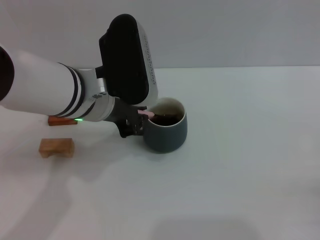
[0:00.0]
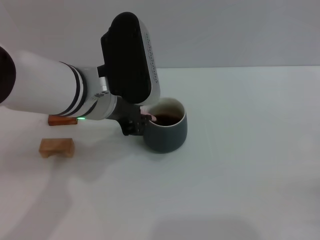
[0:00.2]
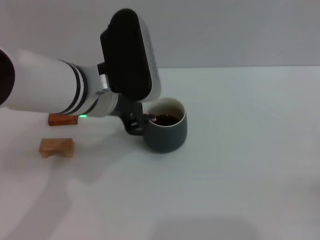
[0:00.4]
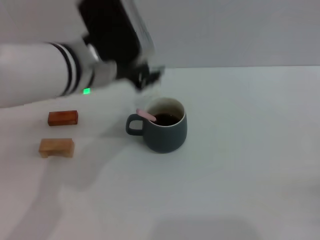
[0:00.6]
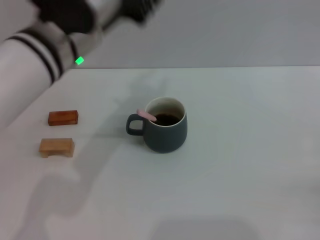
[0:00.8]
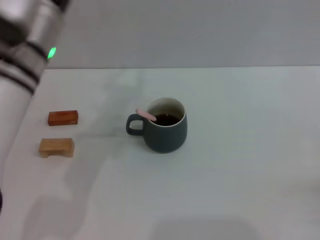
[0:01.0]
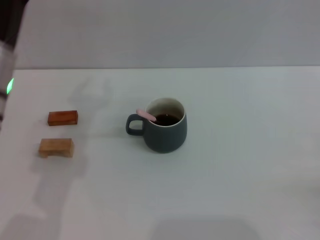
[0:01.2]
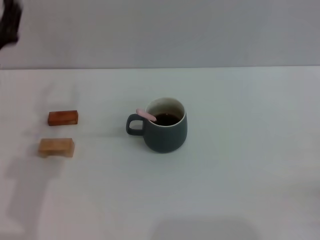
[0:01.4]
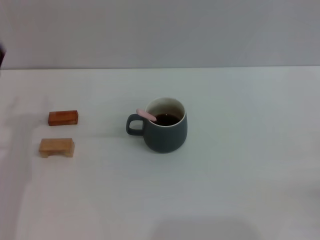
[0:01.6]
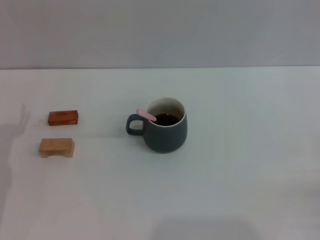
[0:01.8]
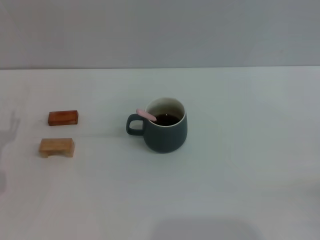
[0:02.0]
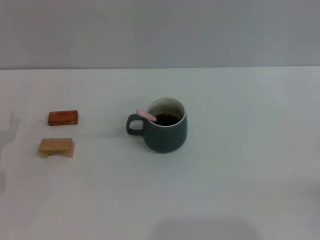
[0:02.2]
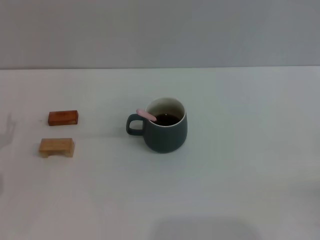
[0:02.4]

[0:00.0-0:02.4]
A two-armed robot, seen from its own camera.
Task of the whole recording: Move the grey cup to the center, lift the pink spoon, stir it three times in the cup, and put the spoon into the cup.
0:00.0 to 0:01.2: The left gripper heads to the left, covering about 10 cm, and opens.
0:01.2 to 0:02.4: The left gripper heads downward and to the left, covering roughly 20 cm, and opens up.

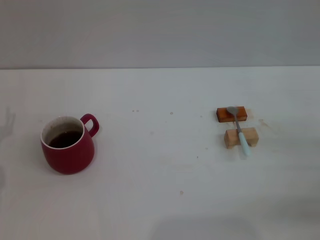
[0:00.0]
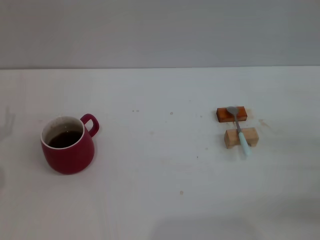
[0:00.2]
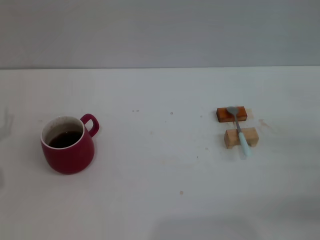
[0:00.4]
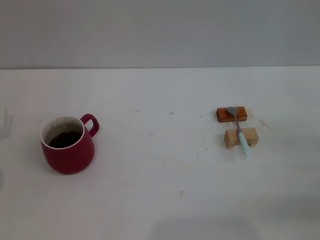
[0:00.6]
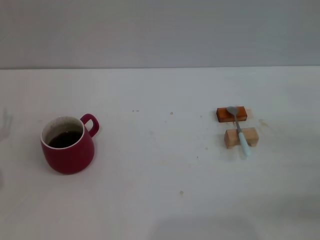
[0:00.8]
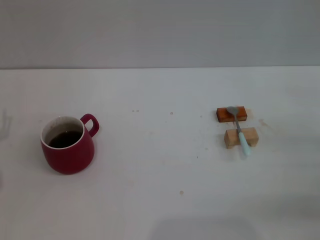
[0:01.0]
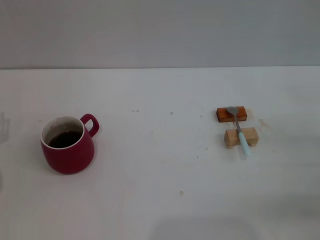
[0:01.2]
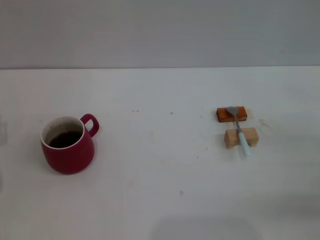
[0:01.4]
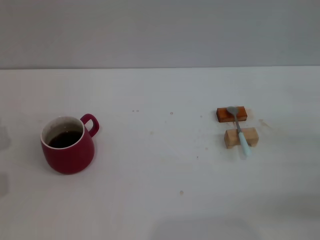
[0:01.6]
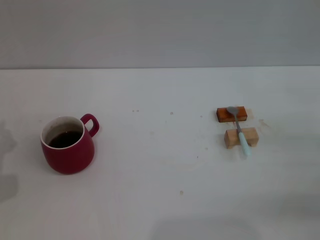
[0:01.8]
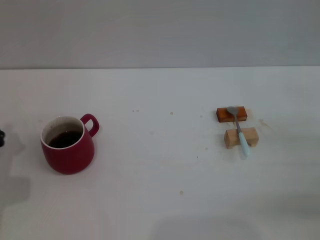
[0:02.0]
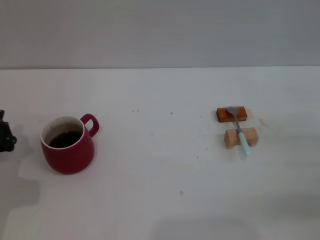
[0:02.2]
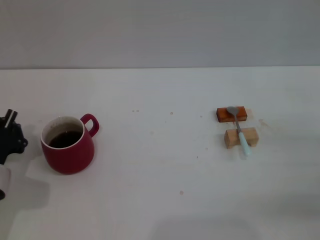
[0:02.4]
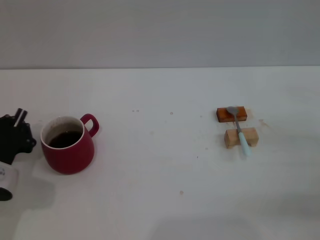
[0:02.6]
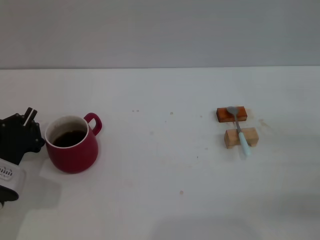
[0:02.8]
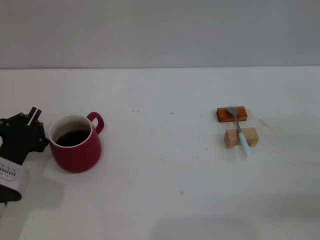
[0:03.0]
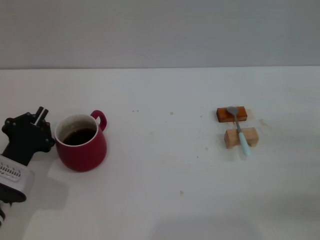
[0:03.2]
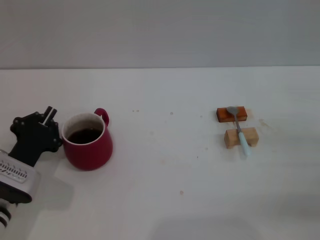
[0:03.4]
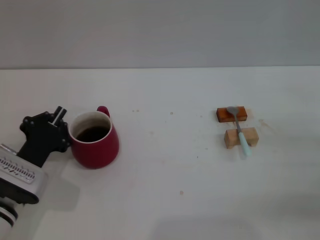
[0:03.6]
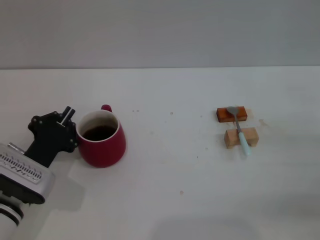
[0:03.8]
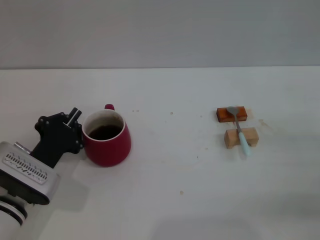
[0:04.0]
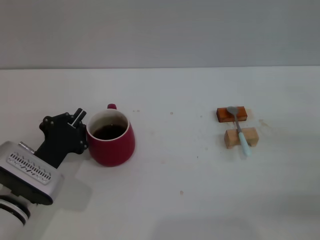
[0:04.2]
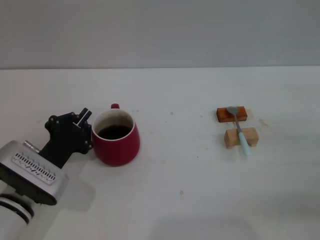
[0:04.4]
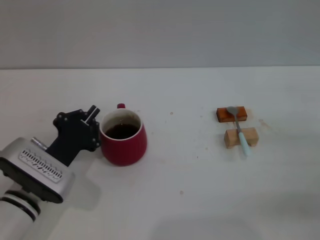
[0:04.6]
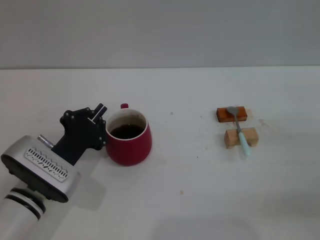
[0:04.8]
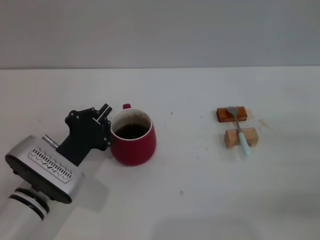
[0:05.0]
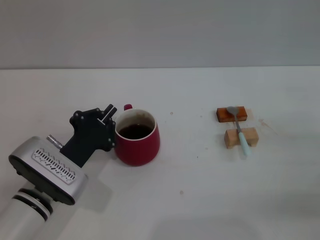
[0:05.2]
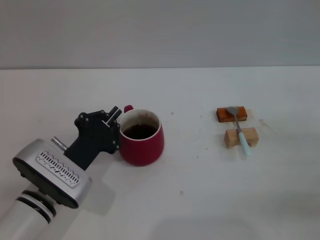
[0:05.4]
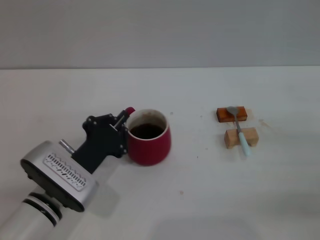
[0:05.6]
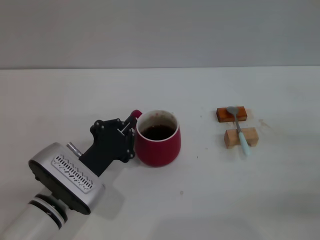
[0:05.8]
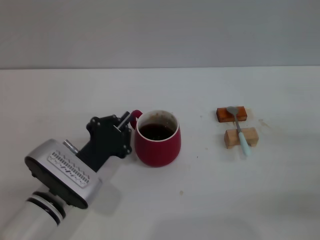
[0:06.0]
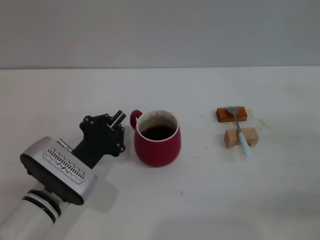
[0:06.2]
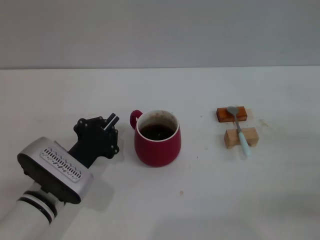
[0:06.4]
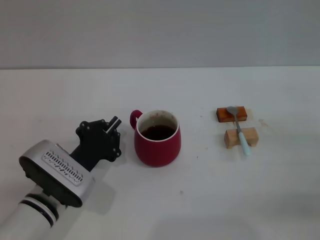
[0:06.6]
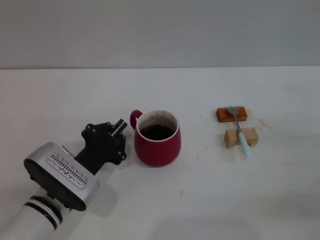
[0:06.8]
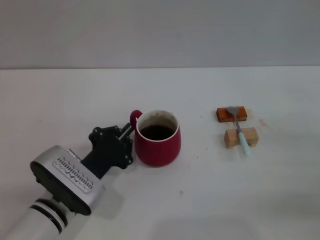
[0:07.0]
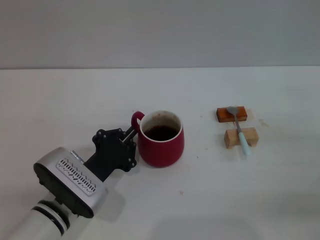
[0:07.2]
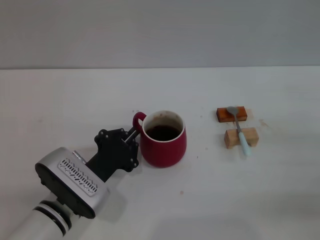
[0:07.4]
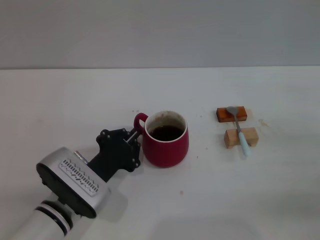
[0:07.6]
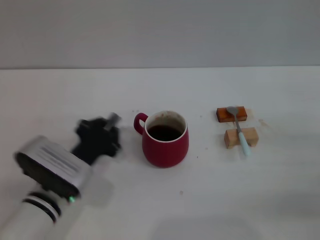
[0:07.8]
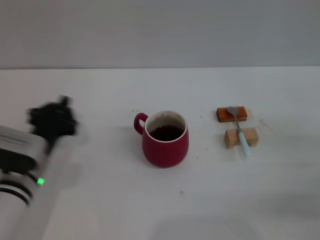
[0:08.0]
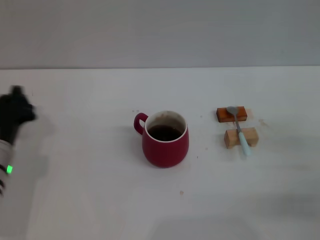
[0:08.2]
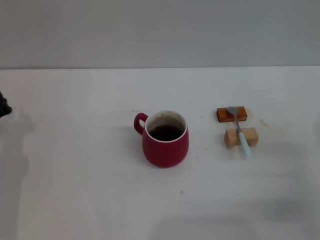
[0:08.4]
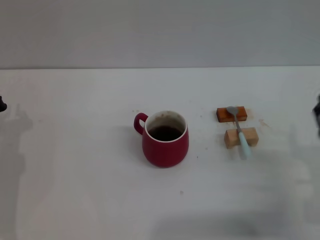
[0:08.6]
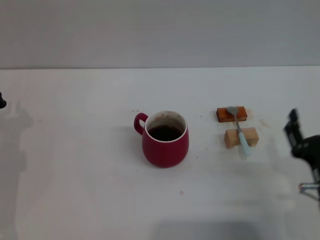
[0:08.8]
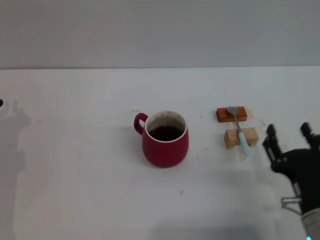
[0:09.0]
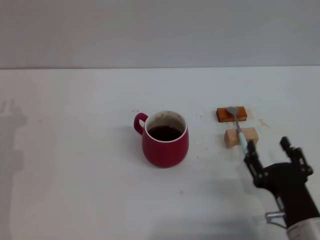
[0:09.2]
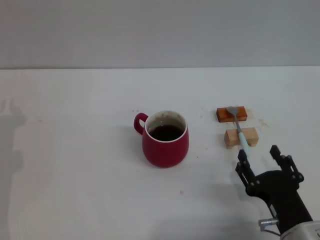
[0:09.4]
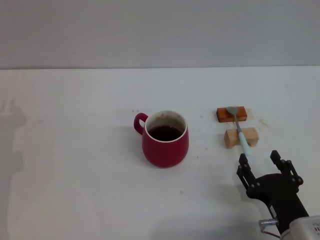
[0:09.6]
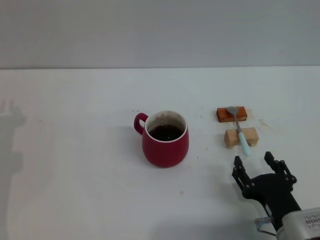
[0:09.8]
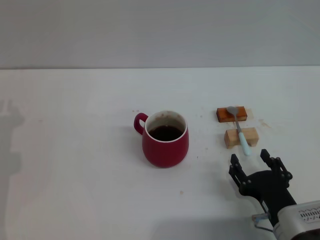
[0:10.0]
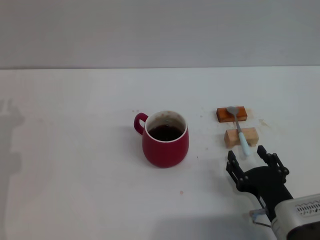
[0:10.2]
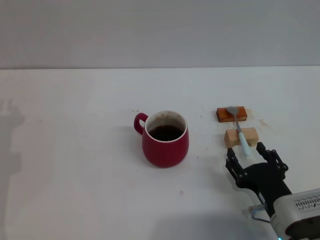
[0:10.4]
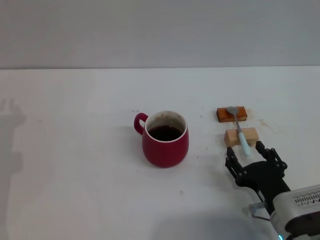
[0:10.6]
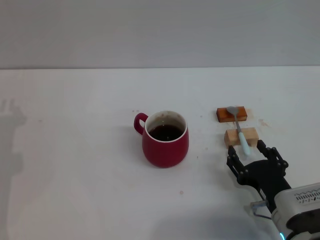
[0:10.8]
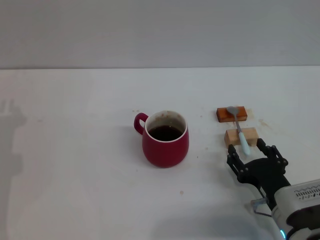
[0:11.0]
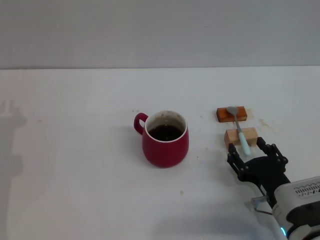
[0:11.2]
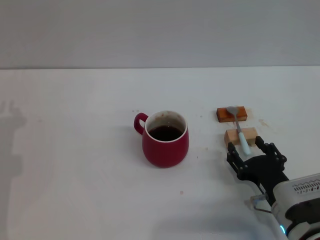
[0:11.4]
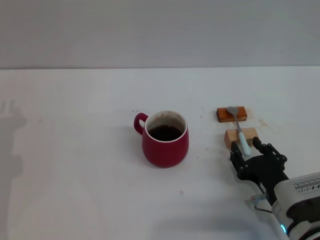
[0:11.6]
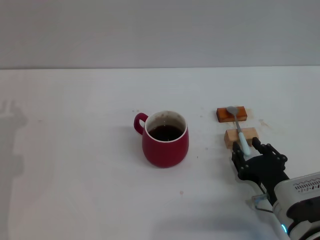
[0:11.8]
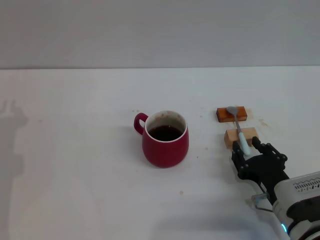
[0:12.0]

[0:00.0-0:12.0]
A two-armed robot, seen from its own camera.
Task of the whole recording: Move the red cup to the center, lift the blue spoon, stir it three times in the cup, and put the spoon into the cup.
Step, 0:01.2 to 0:07.6: Move the cup in the center of the table with left gripper.
0:01.6 to 0:03.0: The left gripper is displaced to the right by roughly 5 cm, and closes up.
0:03.0 to 0:04.4: The left gripper travels to the right by about 5 cm.
0:04.4 to 0:06.0: The left gripper moves to the right, approximately 5 cm.
0:06.0 to 0:07.6: The grippers make only small movements.
0:07.6 to 0:09.0: The left gripper shifts about 15 cm to the left. Meanwhile the right gripper shifts about 15 cm to the left and backward.
0:09.0 to 0:12.0: There are only small adjustments of the grippers.

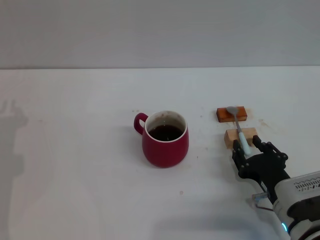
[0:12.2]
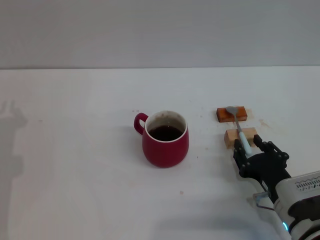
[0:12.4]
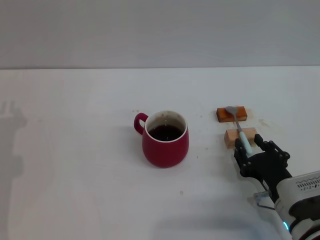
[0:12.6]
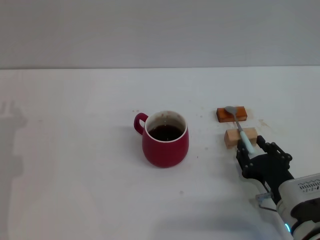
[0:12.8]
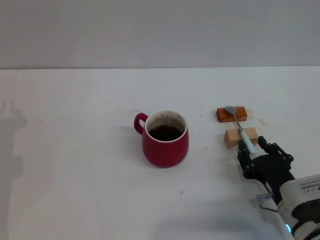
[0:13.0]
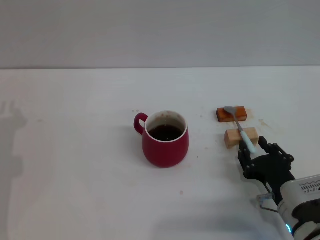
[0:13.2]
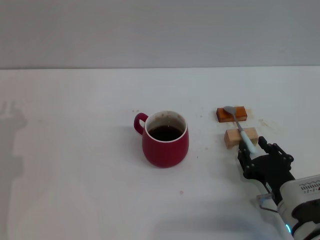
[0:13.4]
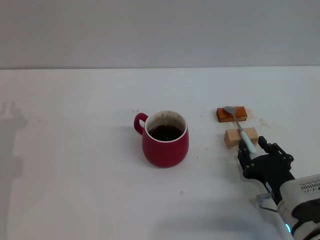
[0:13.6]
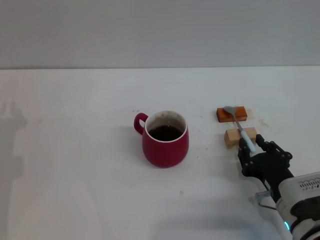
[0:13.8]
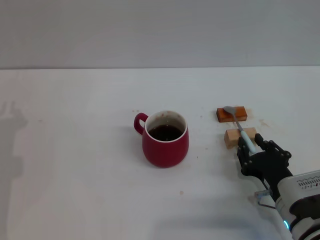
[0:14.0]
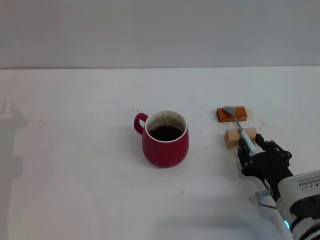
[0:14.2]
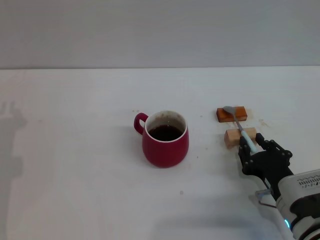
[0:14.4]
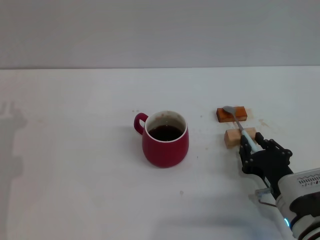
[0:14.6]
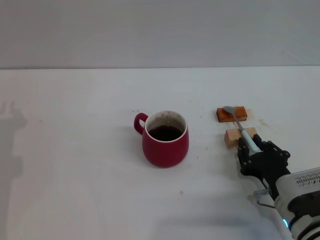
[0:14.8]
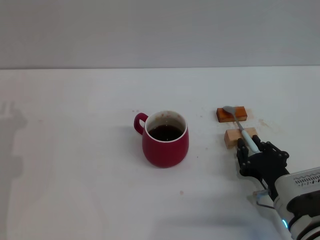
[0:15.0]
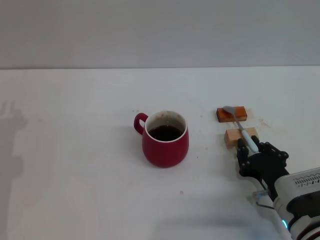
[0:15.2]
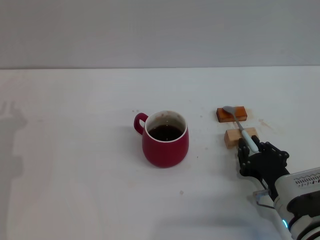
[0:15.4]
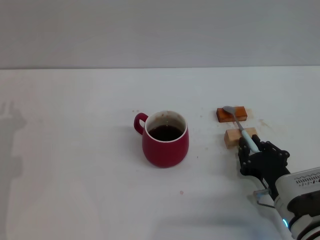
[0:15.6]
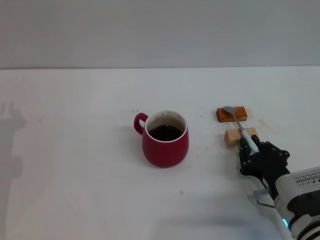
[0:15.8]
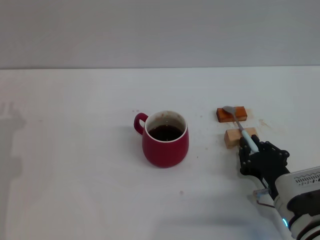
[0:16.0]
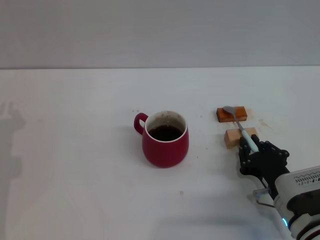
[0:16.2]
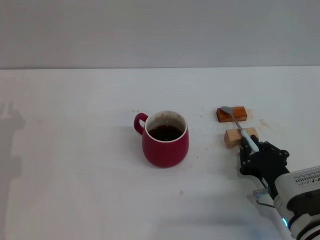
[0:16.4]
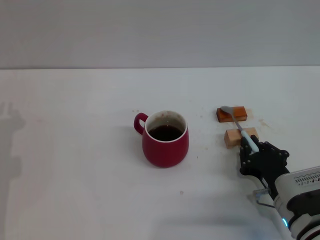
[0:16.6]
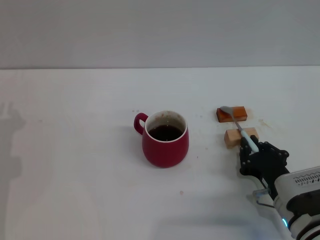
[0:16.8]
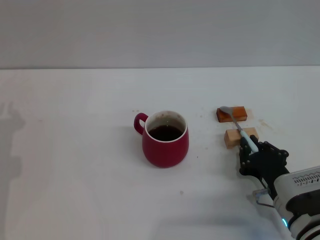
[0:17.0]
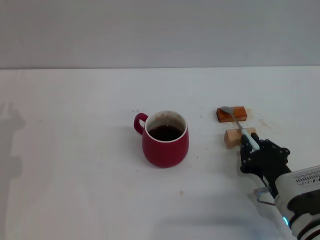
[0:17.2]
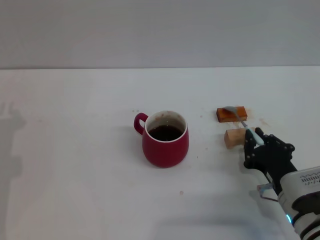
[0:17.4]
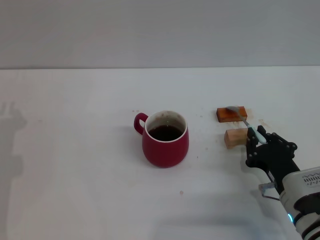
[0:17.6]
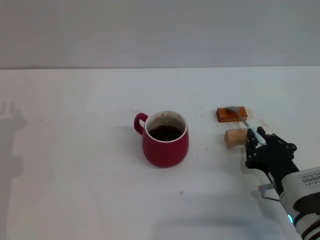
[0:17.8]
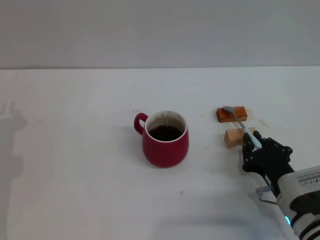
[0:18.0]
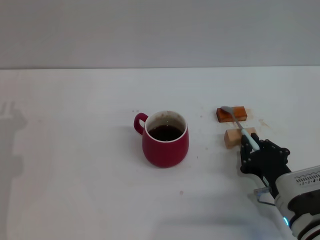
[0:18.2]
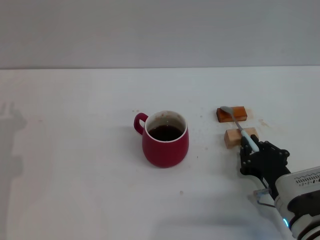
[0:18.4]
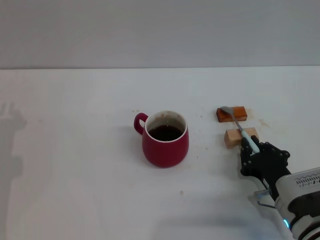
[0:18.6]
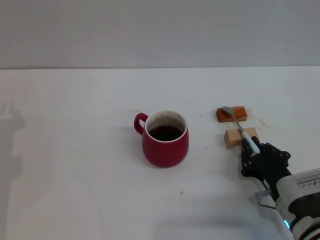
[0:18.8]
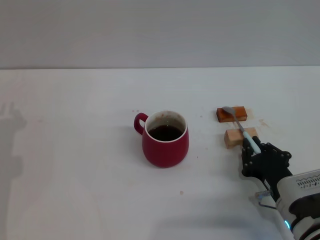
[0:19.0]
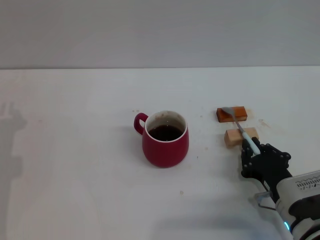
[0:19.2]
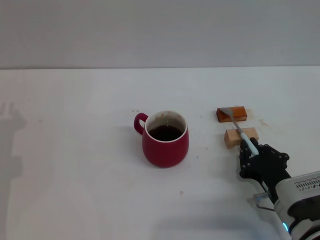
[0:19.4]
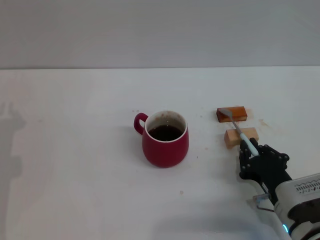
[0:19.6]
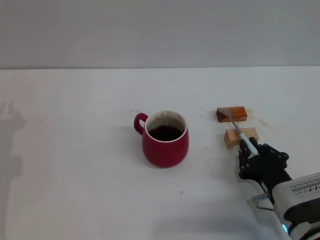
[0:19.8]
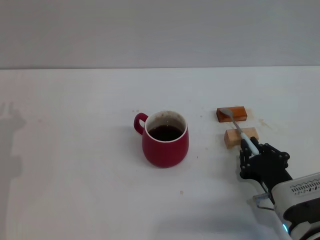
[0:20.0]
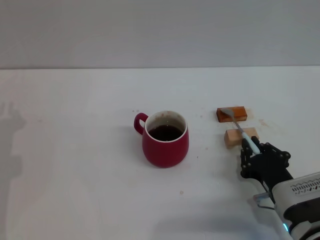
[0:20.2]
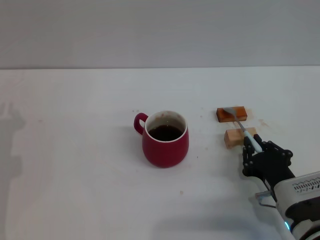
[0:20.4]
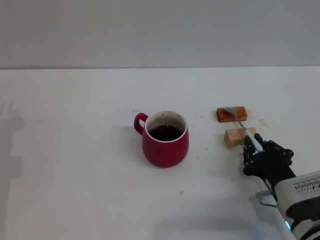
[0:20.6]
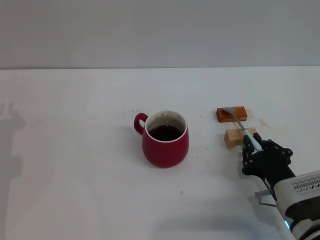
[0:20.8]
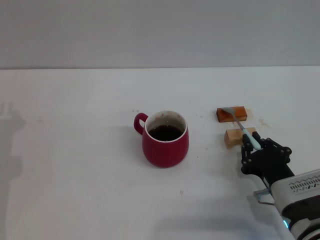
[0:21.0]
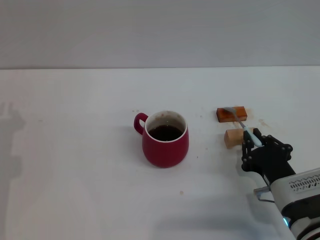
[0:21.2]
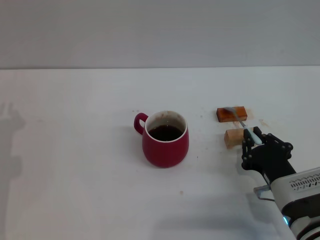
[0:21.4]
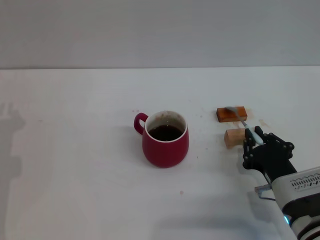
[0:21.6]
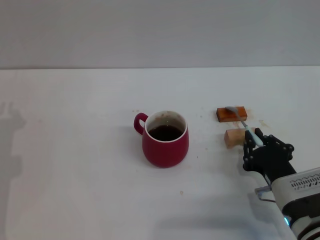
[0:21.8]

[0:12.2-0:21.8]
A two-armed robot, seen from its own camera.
Task of the whole recording: Move the red cup to the center, lift the blue spoon, stir it three times in the cup, and put the spoon into the cup.
0:12.2 to 0:20.2: Both grippers stay put.
0:20.2 to 0:21.8: Both grippers stay about where they are.
